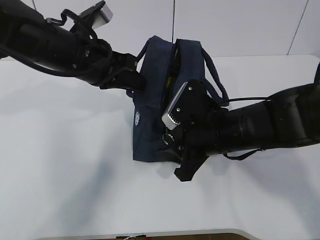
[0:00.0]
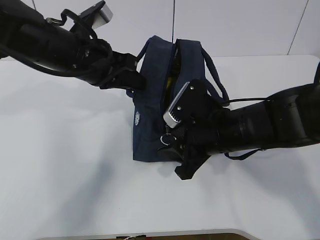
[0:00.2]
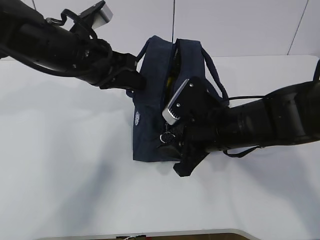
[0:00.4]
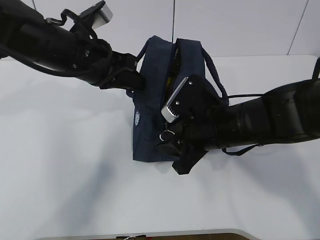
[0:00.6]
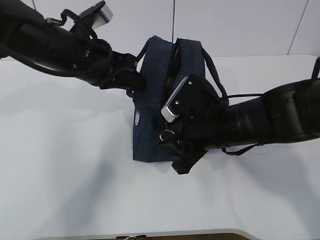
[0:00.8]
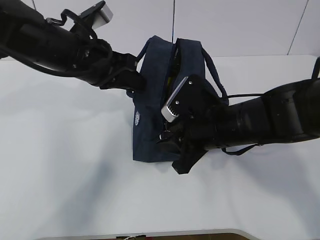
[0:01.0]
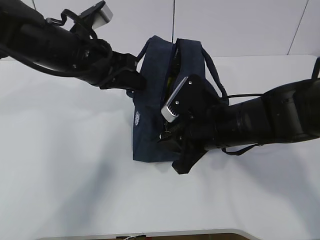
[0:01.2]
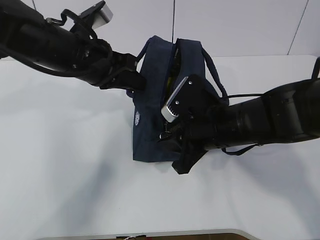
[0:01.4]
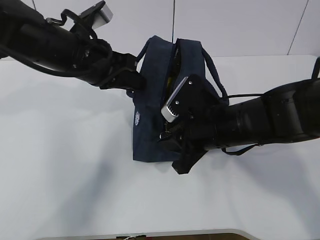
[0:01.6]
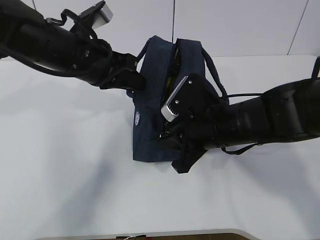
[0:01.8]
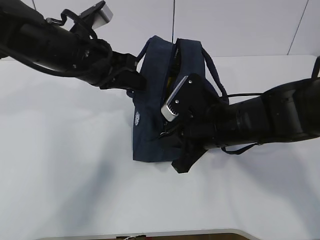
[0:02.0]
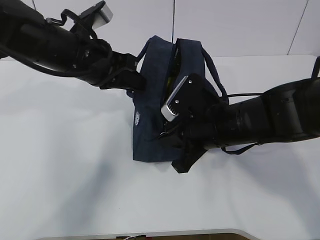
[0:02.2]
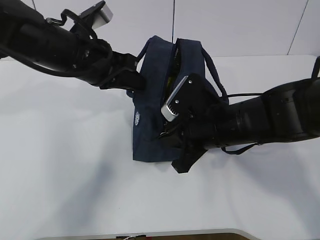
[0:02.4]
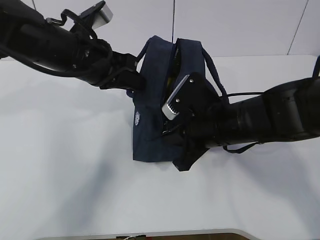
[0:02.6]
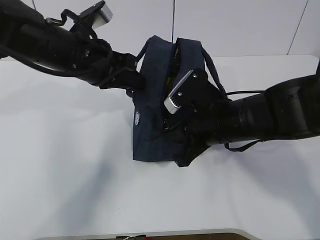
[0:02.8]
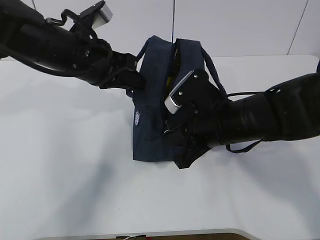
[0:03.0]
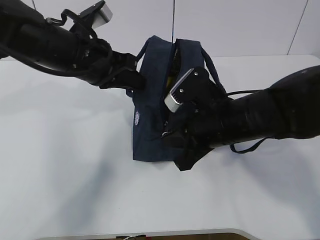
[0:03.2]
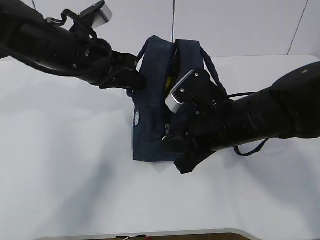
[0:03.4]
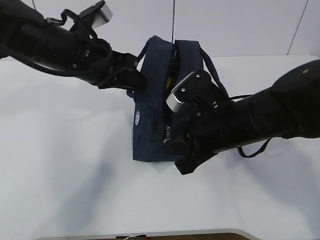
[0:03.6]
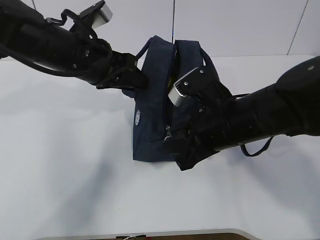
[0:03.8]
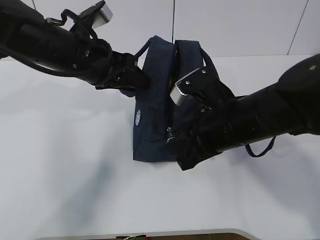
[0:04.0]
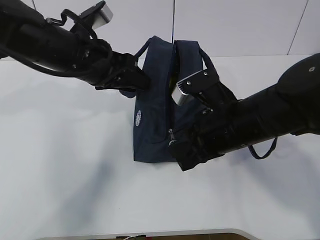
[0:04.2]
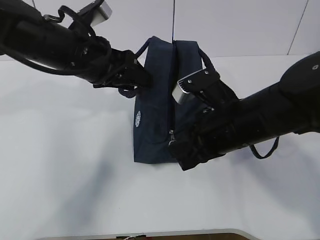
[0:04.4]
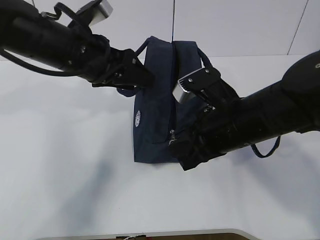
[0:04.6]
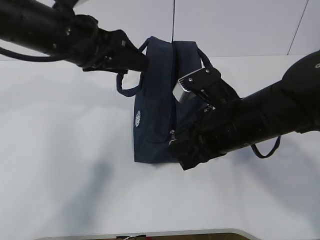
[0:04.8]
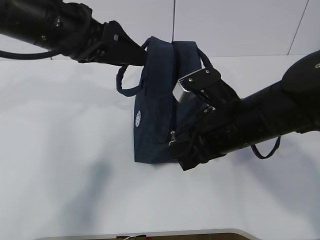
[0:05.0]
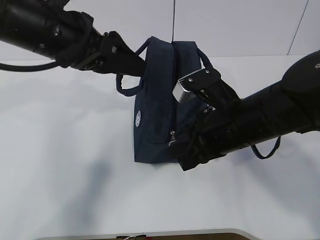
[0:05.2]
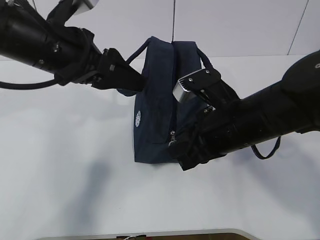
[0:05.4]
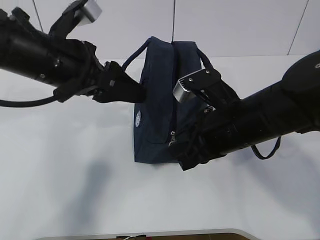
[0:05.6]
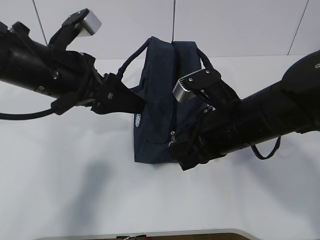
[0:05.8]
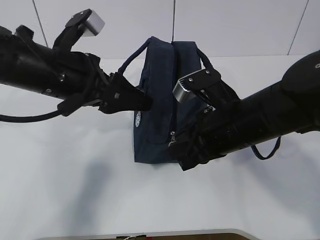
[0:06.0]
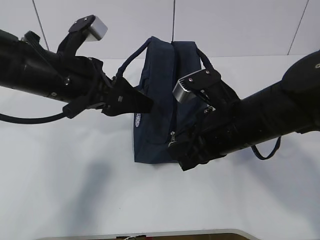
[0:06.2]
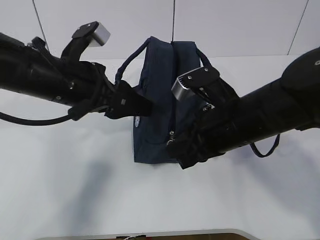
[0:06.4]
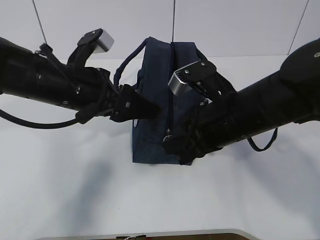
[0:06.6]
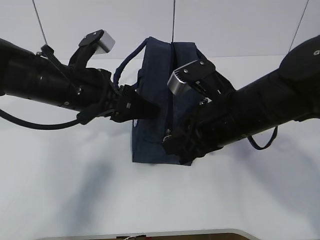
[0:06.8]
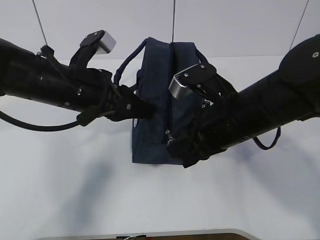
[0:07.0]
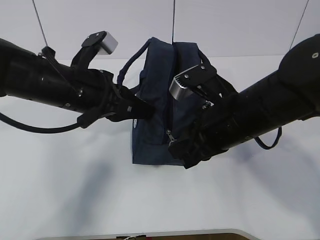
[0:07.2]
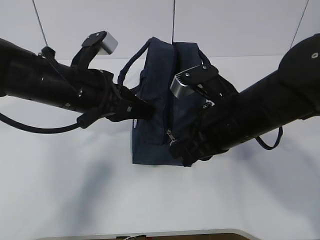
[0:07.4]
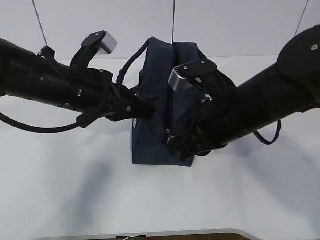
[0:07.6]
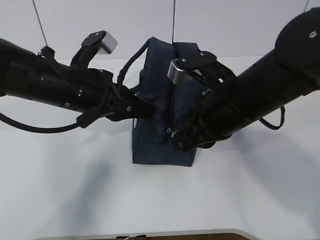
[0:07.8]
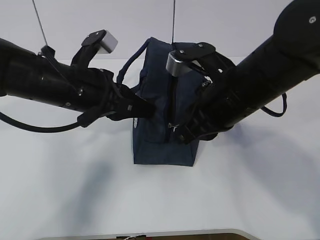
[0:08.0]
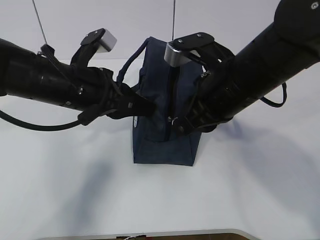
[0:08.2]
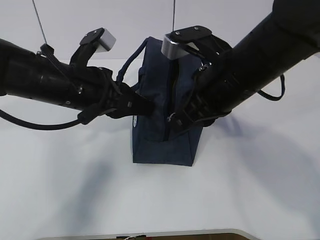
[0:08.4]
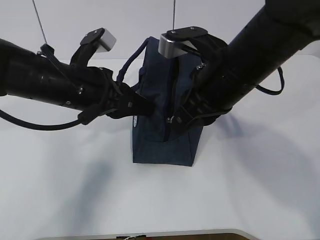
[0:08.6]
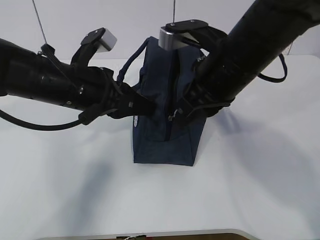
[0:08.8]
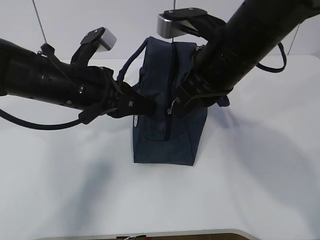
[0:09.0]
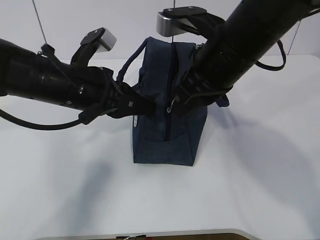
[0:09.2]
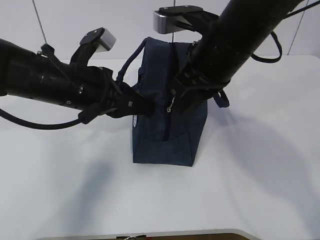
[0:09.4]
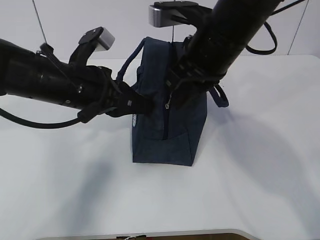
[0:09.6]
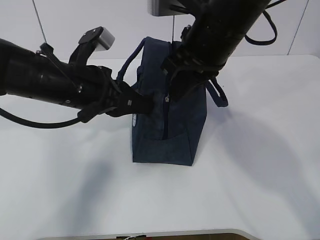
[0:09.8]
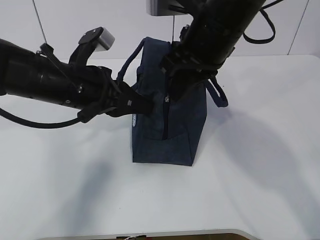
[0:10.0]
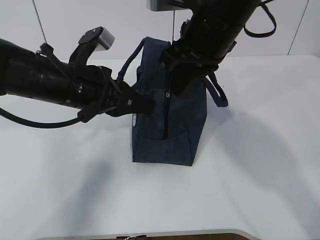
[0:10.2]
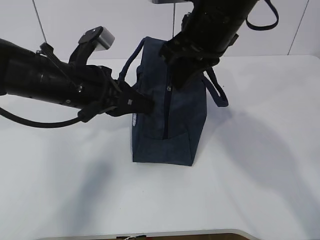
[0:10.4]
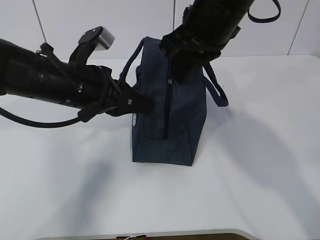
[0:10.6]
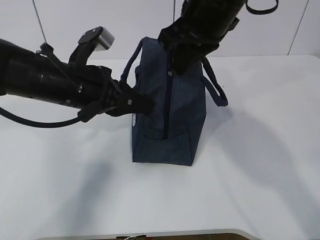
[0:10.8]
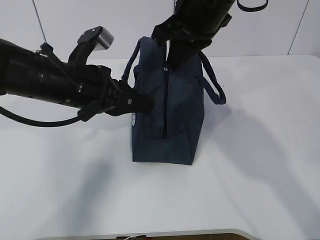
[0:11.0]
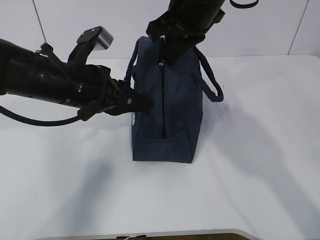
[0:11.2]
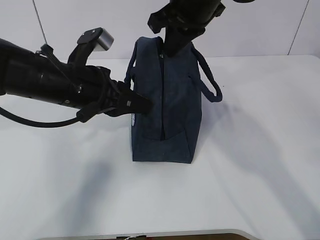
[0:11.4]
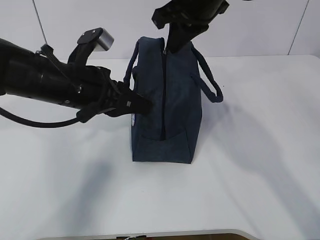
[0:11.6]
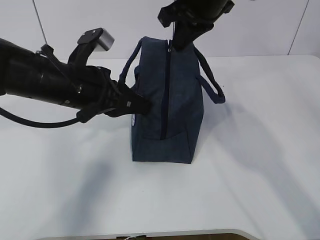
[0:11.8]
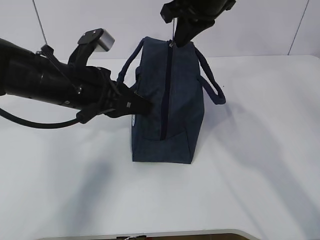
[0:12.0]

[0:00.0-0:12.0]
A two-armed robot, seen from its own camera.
0:00.0 to 0:01.6: The two grippers keep their place.
0:01.6 to 0:03.0: The grippers move only a little.
0:03.0 to 0:04.4: The left gripper opens its fingers.
0:04.4 to 0:06.0: The left gripper moves backward, approximately 5 cm.
0:06.0 to 0:07.6: The left gripper closes up.
0:07.6 to 0:09.0: The right gripper shifts roughly 5 cm upward.
0:09.0 to 0:10.4: The right gripper moves roughly 5 cm.
0:10.4 to 0:12.0: The right gripper travels forward by about 10 cm.

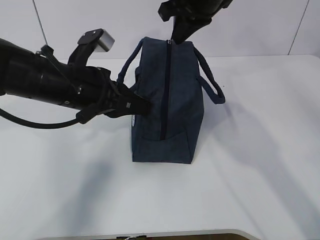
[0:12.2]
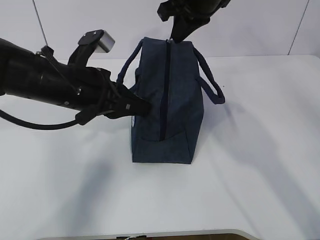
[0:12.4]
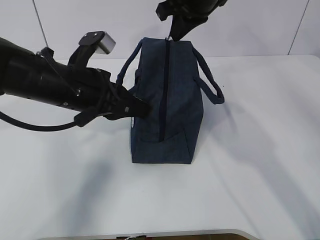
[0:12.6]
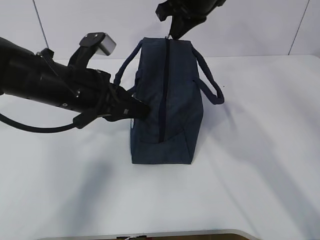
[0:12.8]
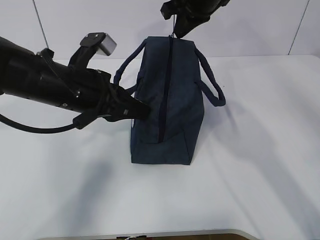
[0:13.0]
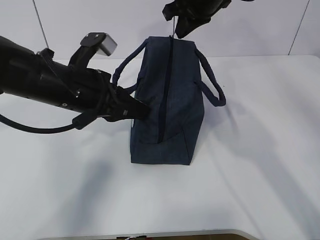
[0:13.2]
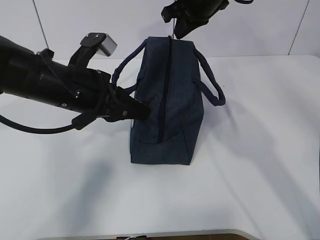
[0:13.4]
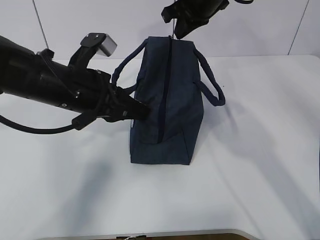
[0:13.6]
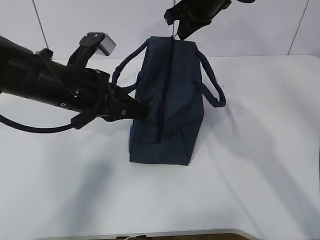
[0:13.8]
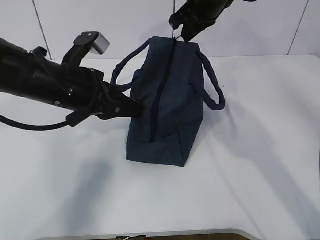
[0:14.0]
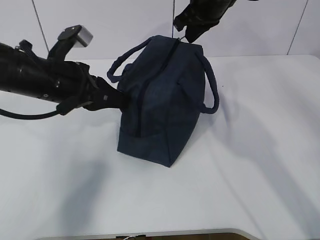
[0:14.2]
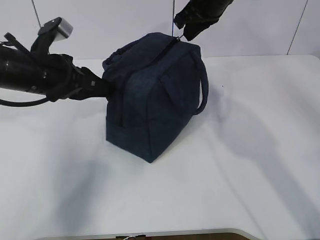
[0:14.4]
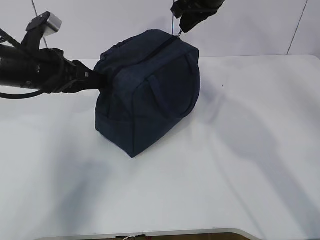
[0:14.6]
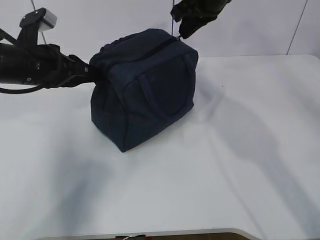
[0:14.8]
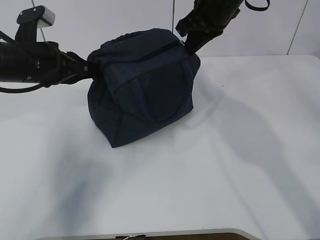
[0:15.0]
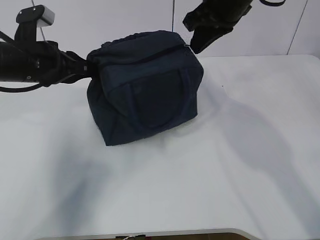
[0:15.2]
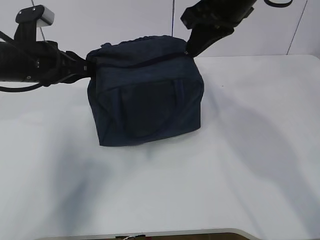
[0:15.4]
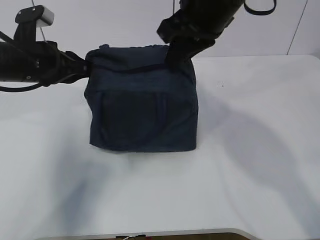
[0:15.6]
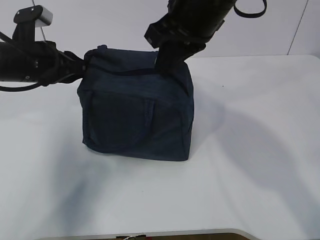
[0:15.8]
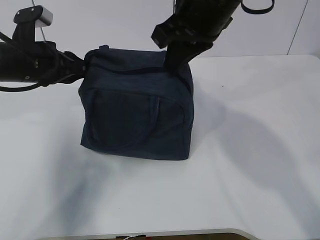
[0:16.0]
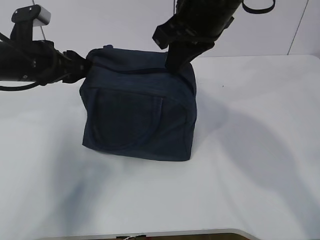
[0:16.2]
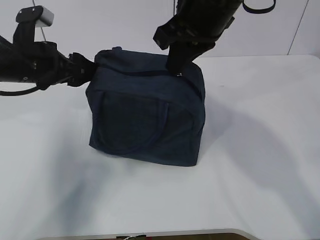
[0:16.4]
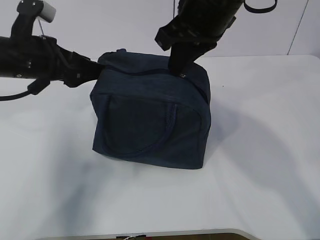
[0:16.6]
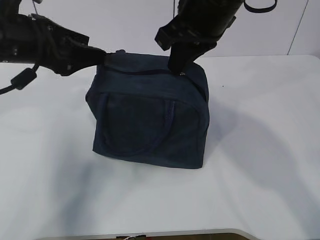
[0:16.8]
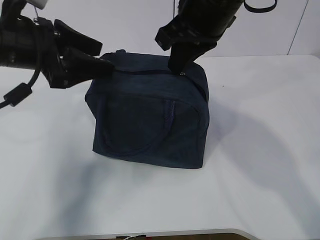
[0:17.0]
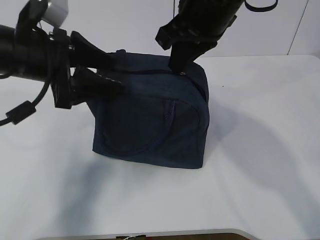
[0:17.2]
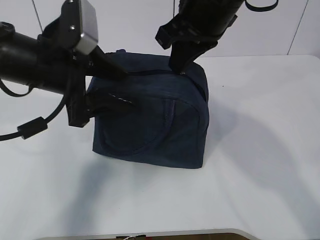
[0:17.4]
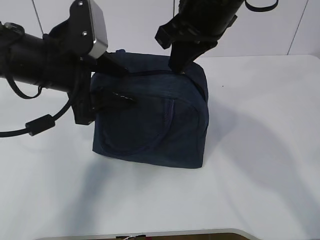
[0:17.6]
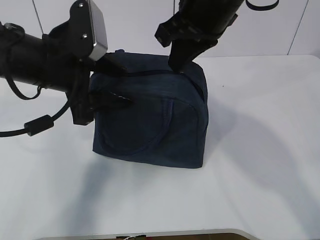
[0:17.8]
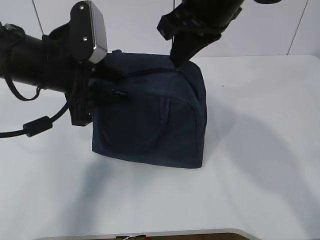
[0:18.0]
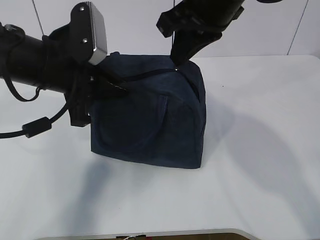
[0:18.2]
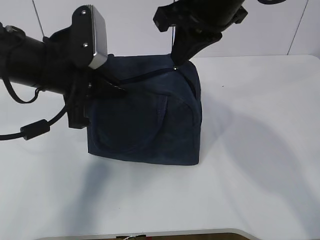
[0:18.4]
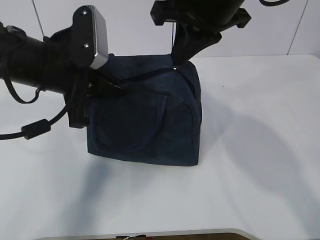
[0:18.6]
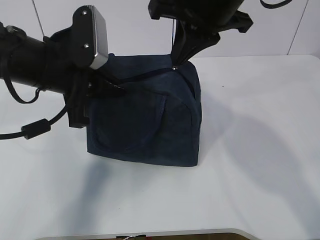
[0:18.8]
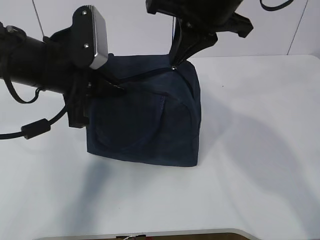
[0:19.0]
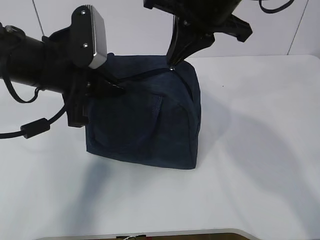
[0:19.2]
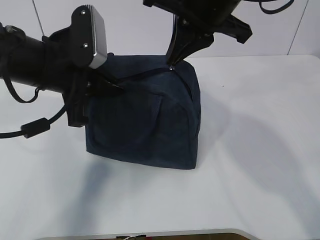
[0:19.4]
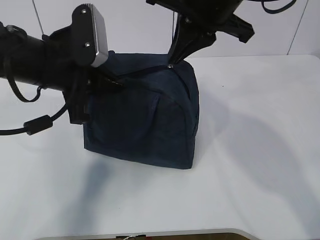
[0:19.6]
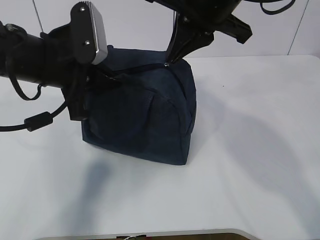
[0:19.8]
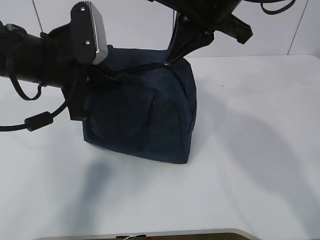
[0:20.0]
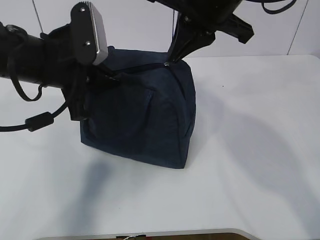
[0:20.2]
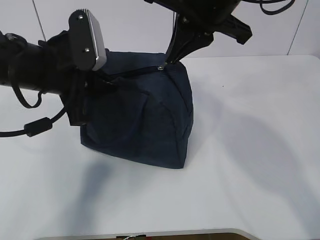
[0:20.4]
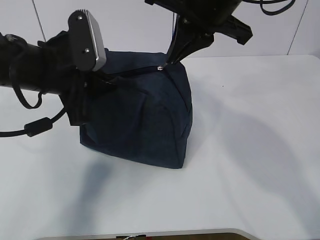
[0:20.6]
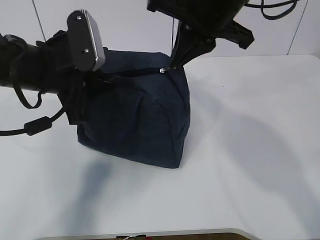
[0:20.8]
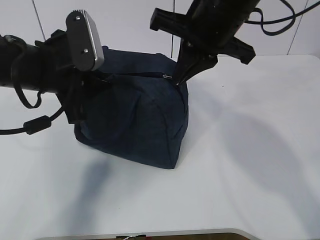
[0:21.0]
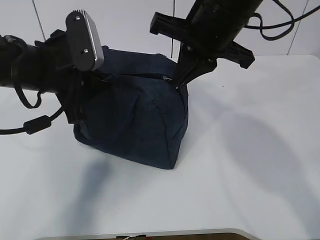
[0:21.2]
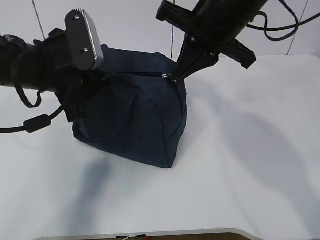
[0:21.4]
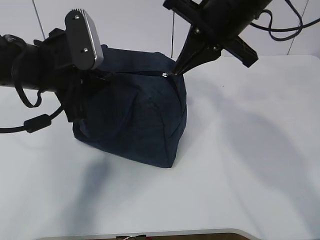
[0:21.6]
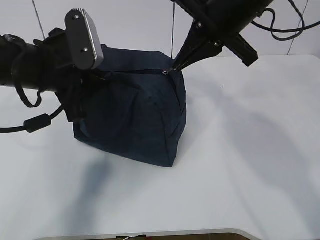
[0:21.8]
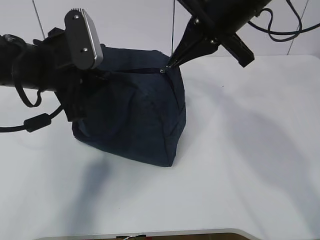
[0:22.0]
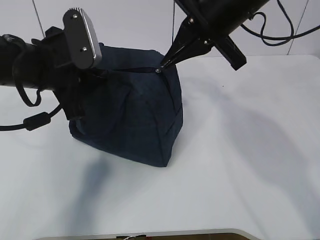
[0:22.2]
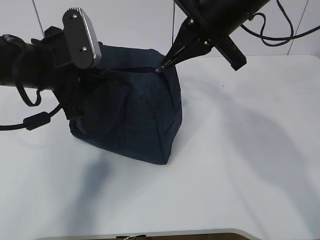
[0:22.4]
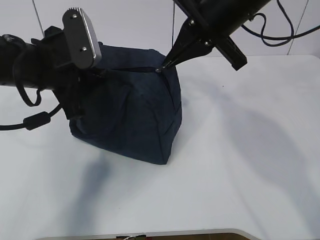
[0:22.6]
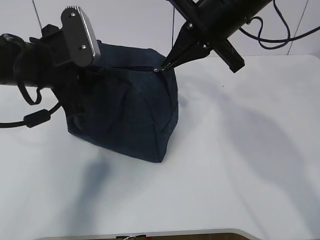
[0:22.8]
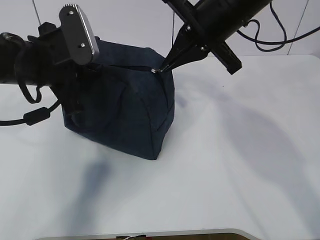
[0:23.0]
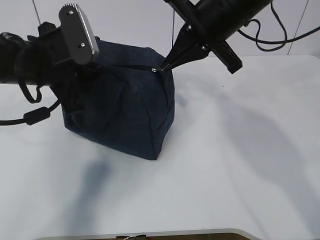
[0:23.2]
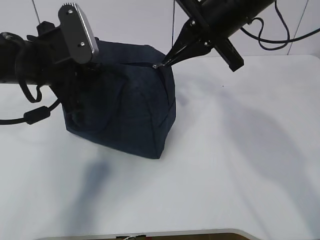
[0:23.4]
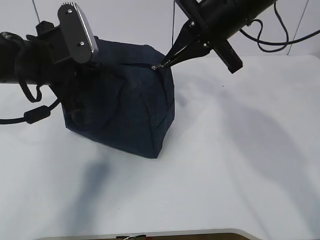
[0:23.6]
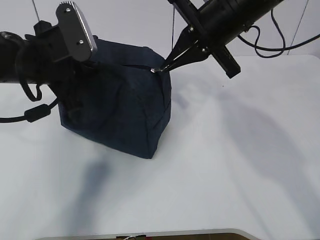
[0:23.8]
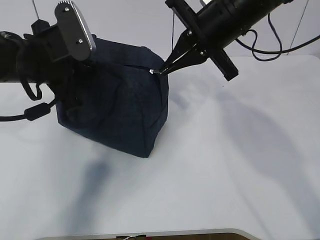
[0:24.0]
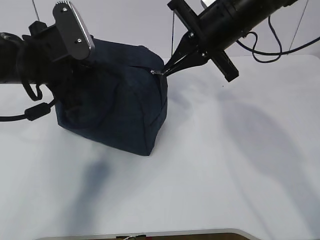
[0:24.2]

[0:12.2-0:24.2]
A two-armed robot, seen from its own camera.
Step, 0:12.2 to 0:14.8: Grab the lunch bag with your left hand.
Step, 0:15.0 to 0:17.8: Pull the zipper with your right hand.
Step, 0:18.0 to 0:18.8: Grab the lunch bag with your left hand.
0:12.2 to 0:13.8: The right gripper moves forward, approximately 5 cm.
0:13.8 to 0:15.2: The right gripper travels backward by roughly 5 cm. Meanwhile the left gripper travels to the left and forward by about 10 cm.
0:15.2 to 0:16.6: The left gripper opens up. The right gripper goes roughly 5 cm backward.
0:16.6 to 0:18.2: The left gripper shifts about 10 cm to the right and backward, and closes.
0:19.8 to 0:21.2: The grippers stay close to where they were, moving slightly.
0:22.6 to 0:24.2: There are only small adjustments of the grippers.
